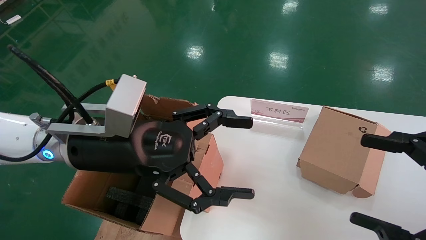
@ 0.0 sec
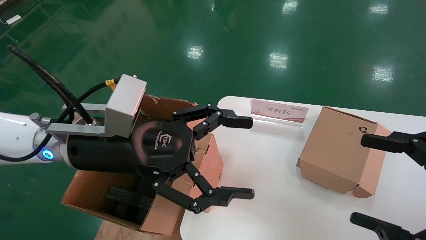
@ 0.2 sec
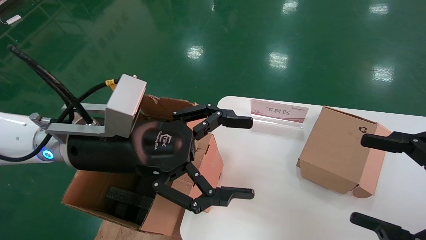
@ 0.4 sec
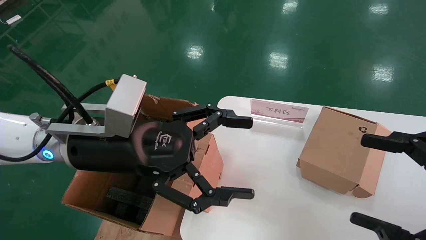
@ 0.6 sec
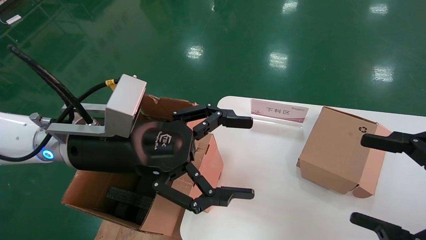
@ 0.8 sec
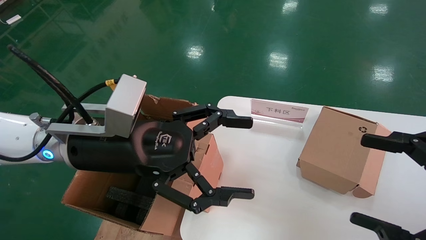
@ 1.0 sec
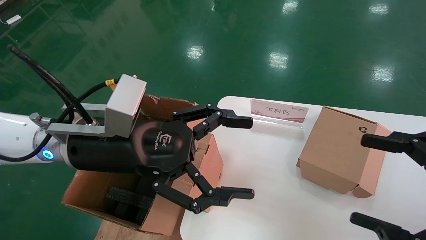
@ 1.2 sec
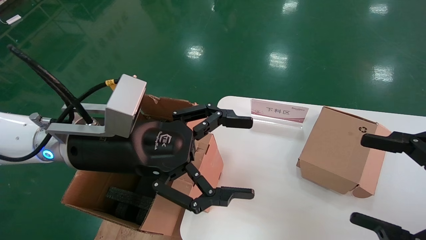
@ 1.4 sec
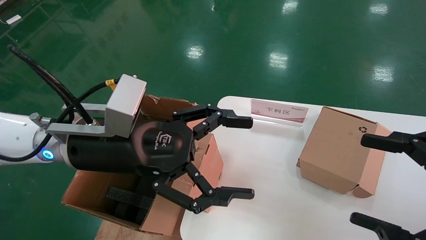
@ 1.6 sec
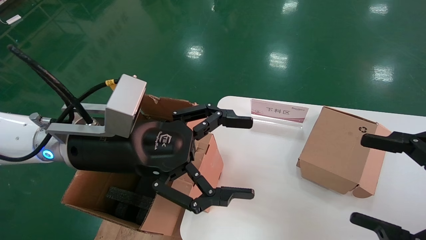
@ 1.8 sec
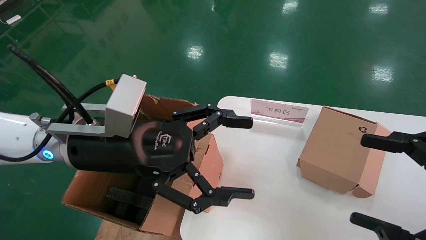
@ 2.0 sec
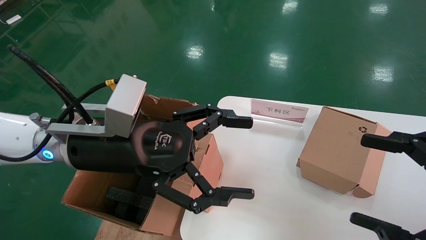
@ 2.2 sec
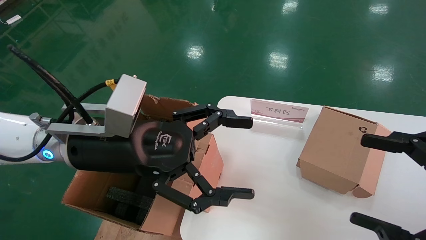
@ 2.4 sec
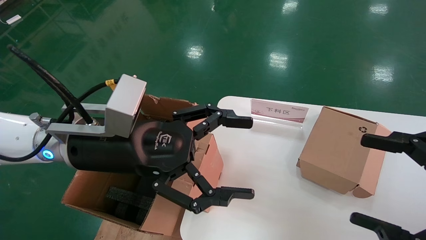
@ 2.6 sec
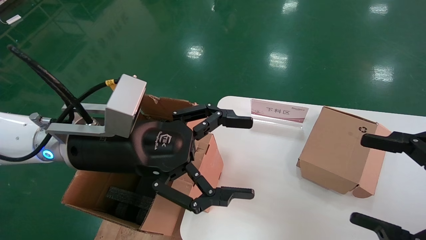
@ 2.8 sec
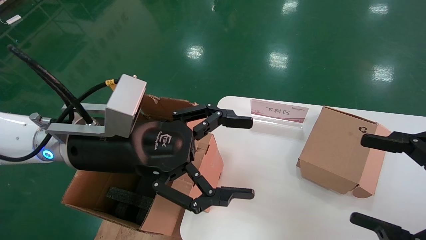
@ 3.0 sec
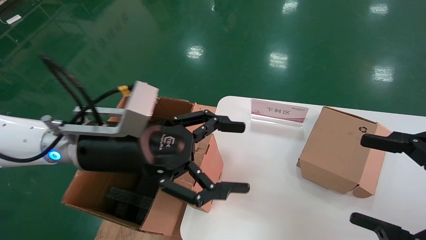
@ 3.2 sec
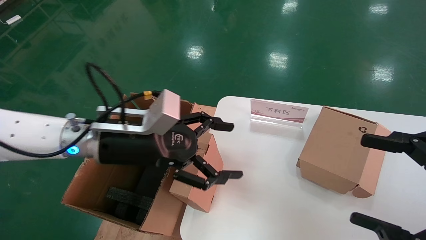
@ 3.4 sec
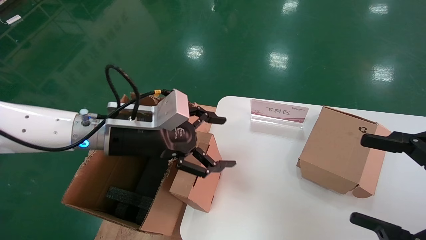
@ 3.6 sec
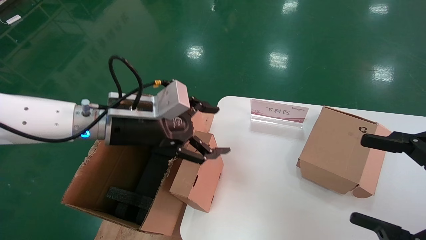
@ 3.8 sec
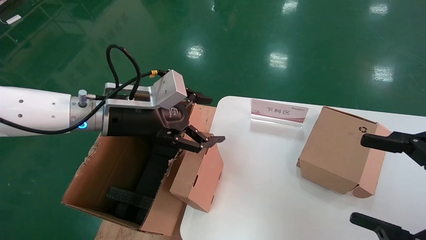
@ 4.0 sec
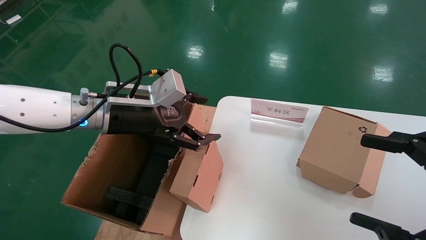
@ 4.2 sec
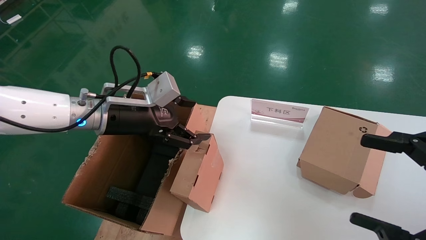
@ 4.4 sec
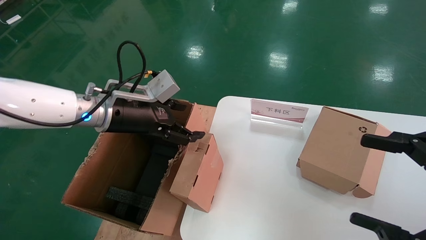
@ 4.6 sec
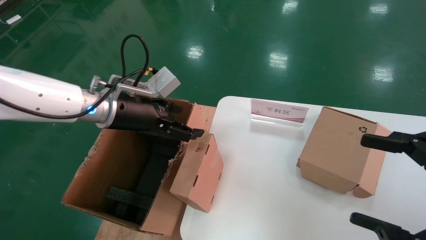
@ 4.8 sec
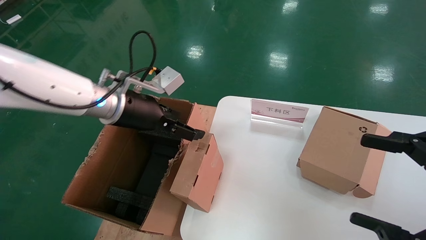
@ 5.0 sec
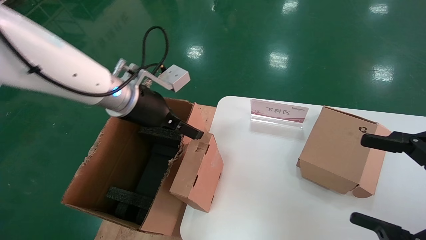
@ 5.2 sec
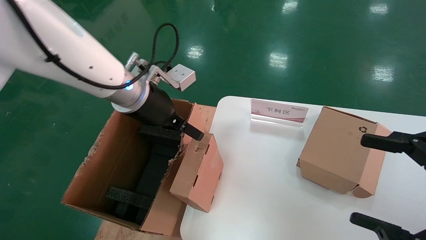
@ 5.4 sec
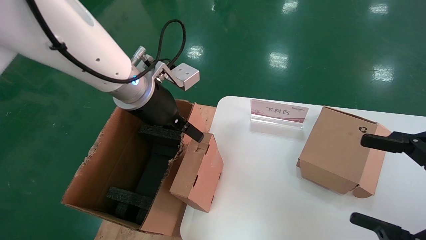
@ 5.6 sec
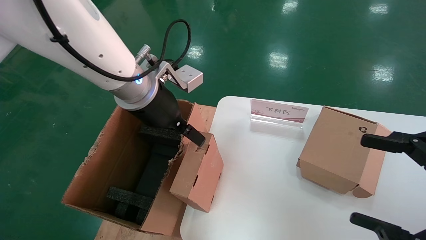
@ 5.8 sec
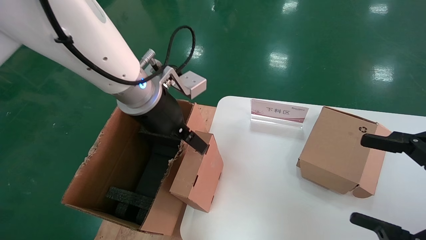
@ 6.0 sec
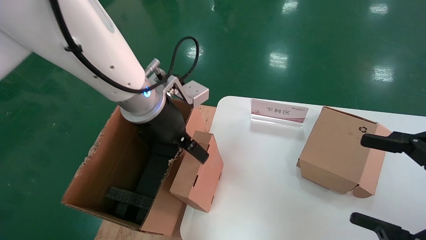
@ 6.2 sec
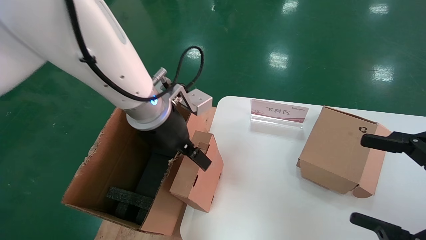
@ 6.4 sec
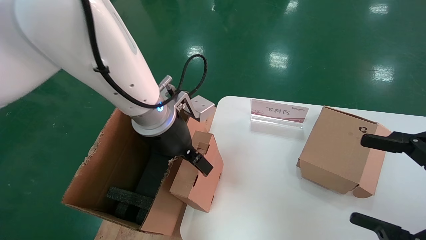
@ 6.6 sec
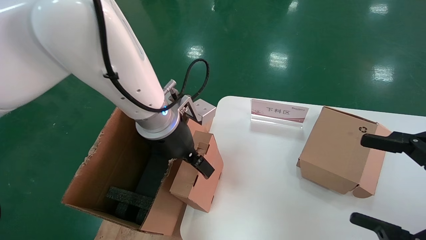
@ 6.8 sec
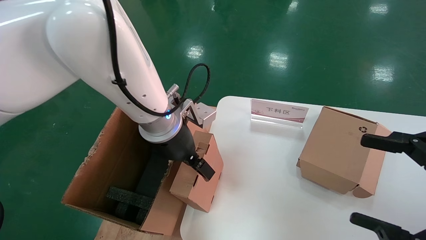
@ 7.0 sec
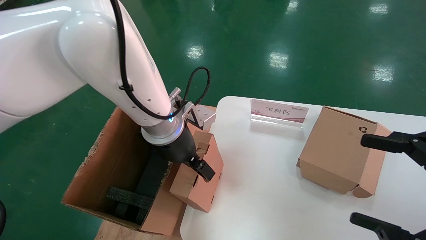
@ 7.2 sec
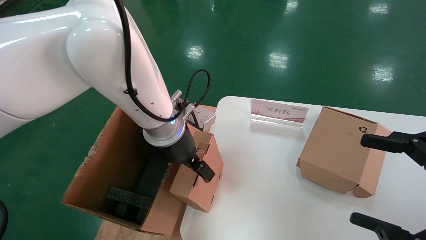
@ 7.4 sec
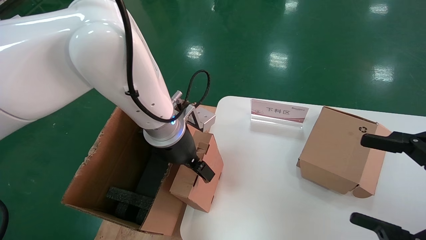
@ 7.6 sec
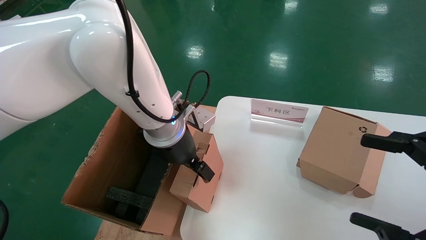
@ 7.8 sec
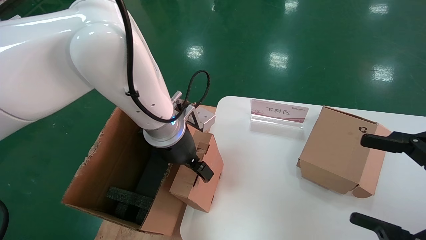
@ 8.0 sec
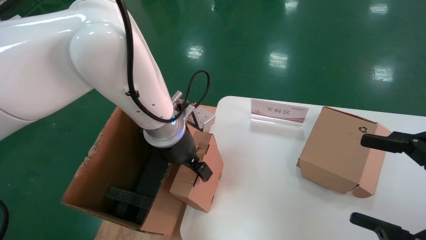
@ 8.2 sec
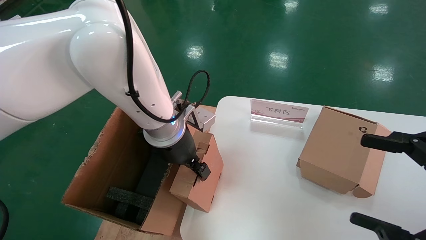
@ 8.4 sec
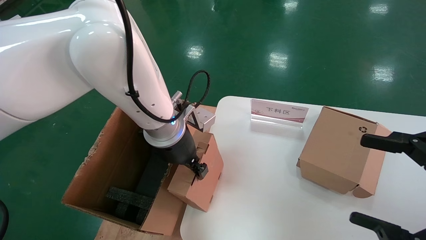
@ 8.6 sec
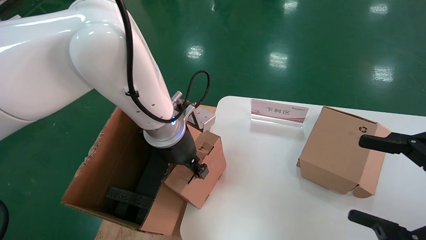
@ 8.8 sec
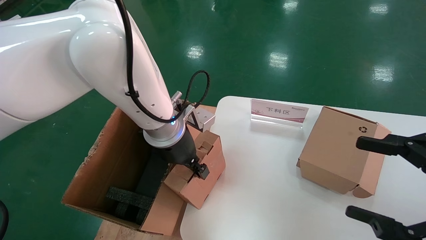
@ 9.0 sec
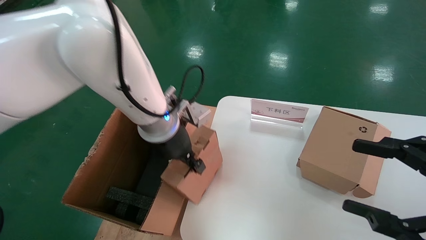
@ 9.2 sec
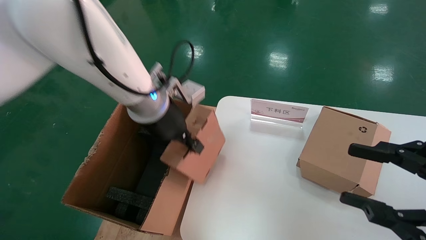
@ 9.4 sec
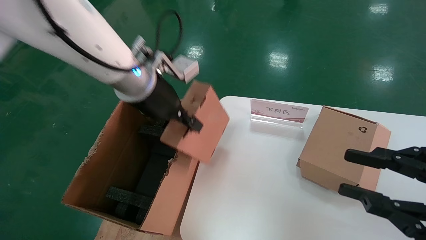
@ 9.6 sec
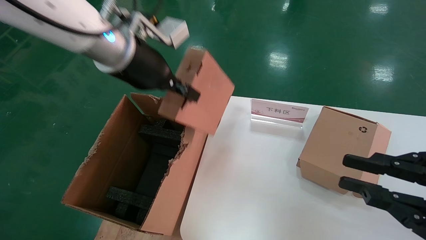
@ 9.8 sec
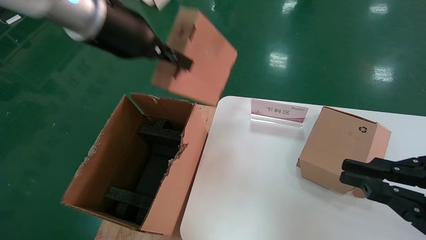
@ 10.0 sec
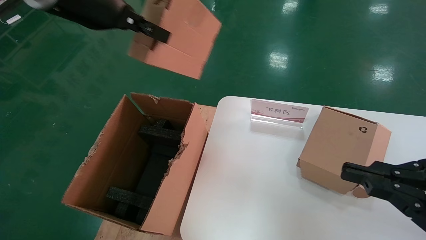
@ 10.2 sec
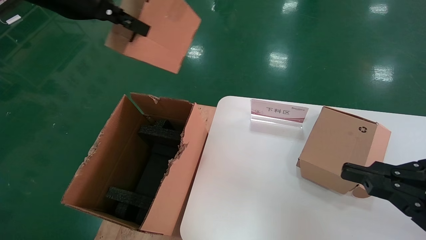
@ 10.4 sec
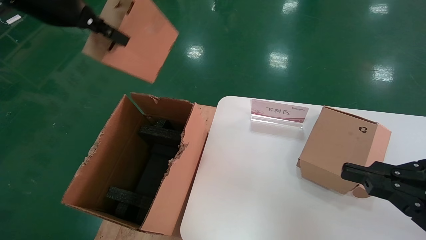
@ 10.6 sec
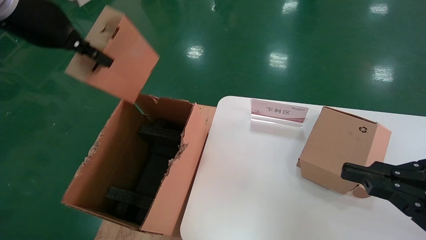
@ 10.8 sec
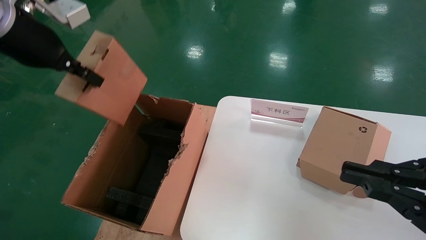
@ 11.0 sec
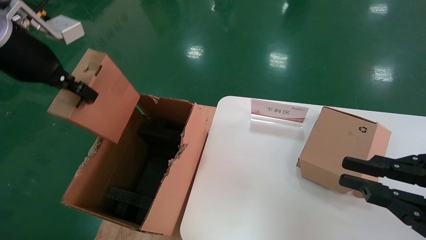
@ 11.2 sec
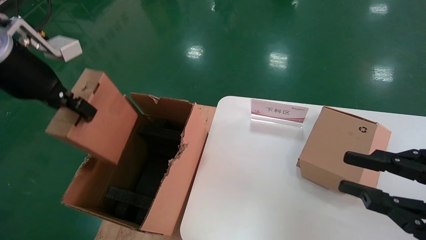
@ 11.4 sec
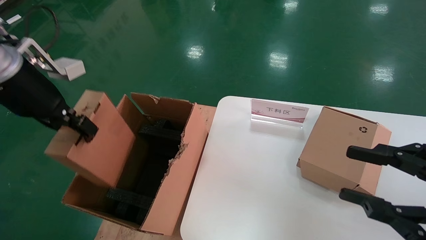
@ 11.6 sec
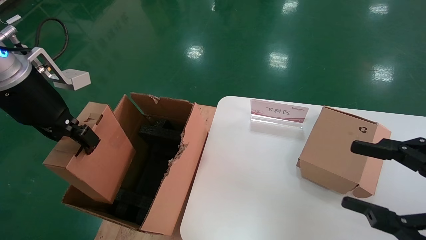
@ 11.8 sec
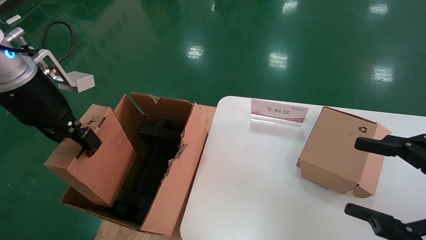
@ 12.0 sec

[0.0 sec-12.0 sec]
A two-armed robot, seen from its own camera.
Task of the whole recording: put the box on the table into the big box.
Step, 0.0 sec to 8.4 sec: Grasp the paper box.
0.0 sec to 3.0 sec: Neither gripper changes place.
3.0 sec to 4.4 sec: The left gripper heads forward, covering some 10 cm.
4.4 sec to 6.0 sec: The left gripper shifts about 10 cm to the right.
6.0 sec to 7.6 sec: The left gripper travels downward by about 5 cm.
7.6 sec to 9.0 sec: The left gripper closes its fingers.
9.0 sec to 10.4 sec: The right gripper closes up, while the left gripper travels upward and to the left by approximately 25 cm.
10.4 sec to 12.0 sec: The right gripper opens its fingers. Meanwhile the left gripper shifts roughly 15 cm downward and to the left.

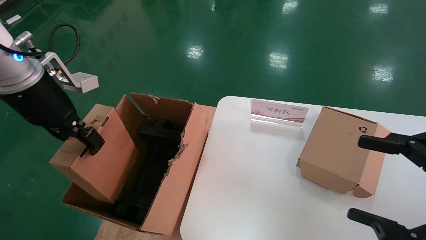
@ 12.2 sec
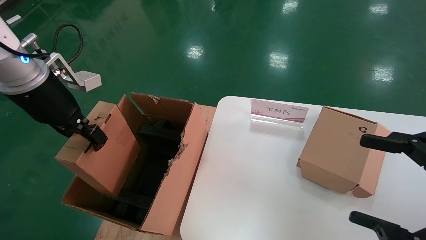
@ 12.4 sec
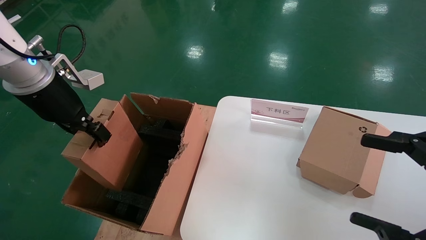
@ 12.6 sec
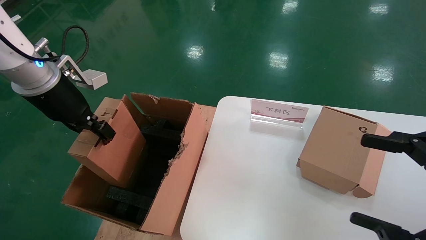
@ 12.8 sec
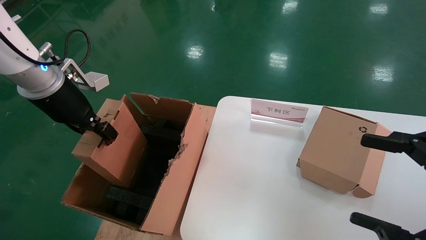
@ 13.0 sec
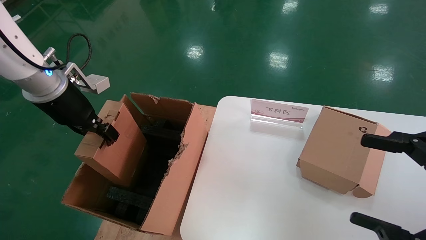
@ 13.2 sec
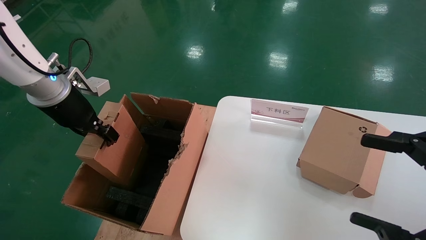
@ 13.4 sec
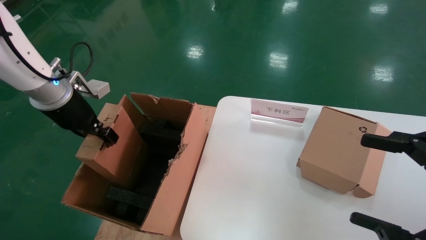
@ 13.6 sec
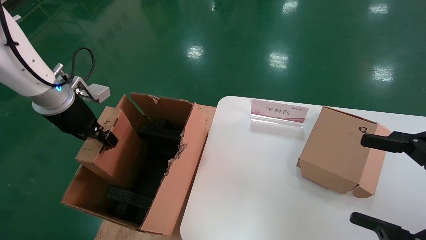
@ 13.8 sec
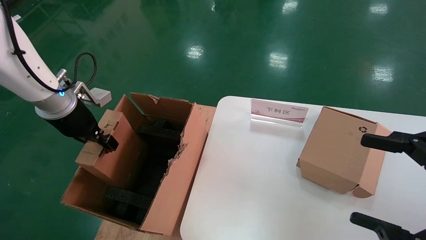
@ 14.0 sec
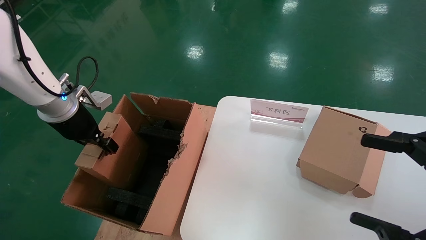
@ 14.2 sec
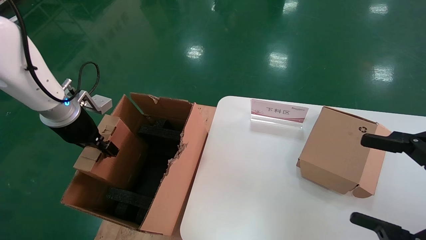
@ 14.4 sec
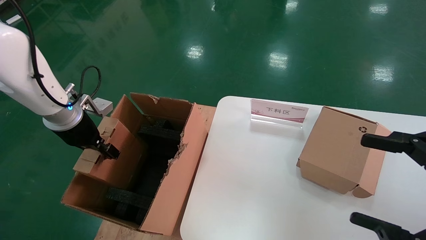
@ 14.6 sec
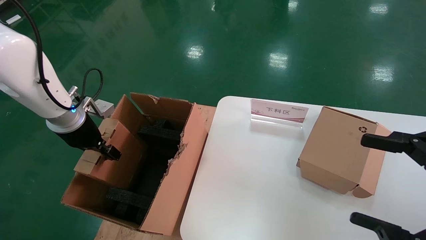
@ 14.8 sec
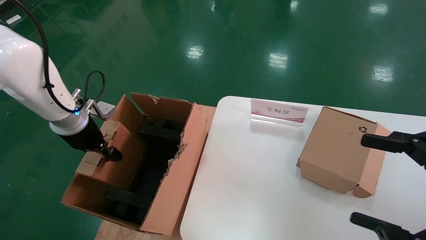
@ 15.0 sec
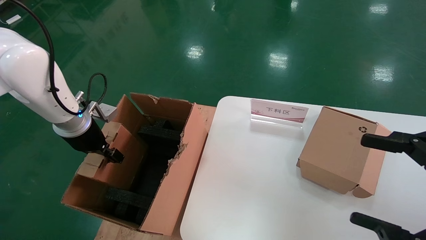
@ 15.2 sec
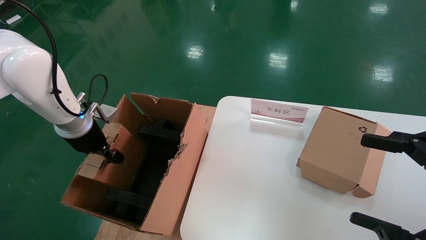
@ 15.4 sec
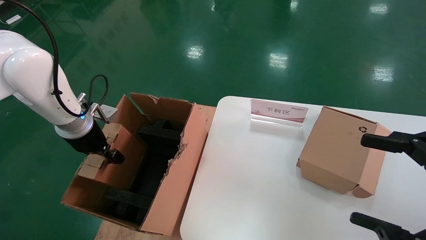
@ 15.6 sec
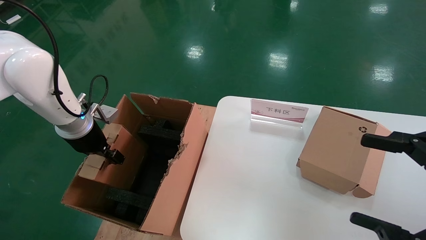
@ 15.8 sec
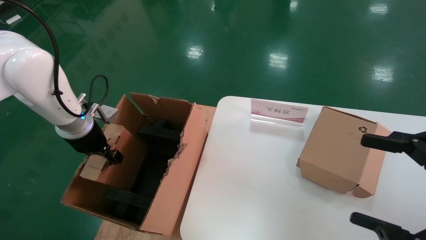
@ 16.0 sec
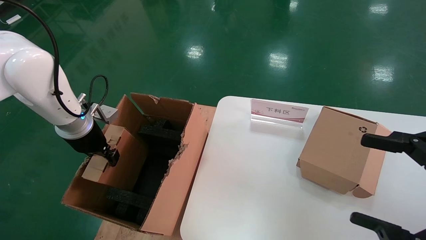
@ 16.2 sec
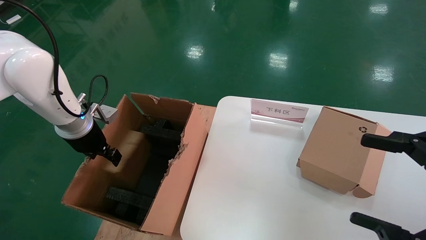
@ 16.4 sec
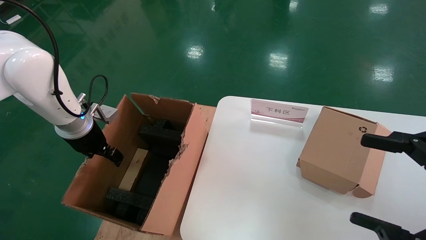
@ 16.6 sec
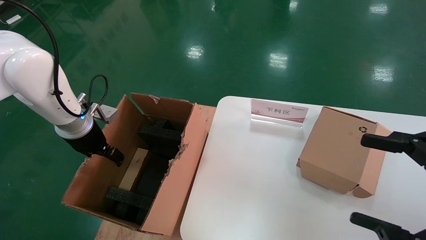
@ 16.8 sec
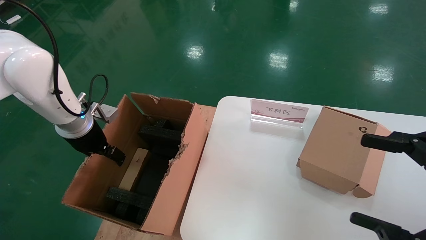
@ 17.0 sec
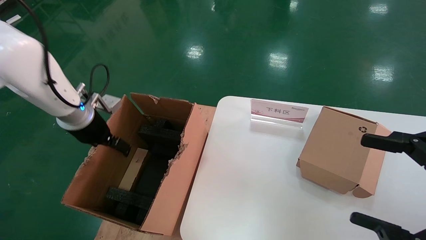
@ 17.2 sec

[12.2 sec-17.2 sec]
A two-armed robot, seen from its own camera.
Task of the whole recording: put the box on the table into the big box.
Step, 12.2 sec to 16.6 sec: Place the paper box in the another big box.
12.2 sec to 13.8 sec: The left gripper moves downward and forward, about 10 cm.
13.8 sec to 15.6 sec: The left gripper is displaced downward by some 5 cm.
15.6 sec to 17.2 sec: The left gripper opens up.
